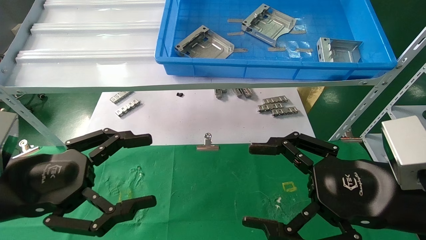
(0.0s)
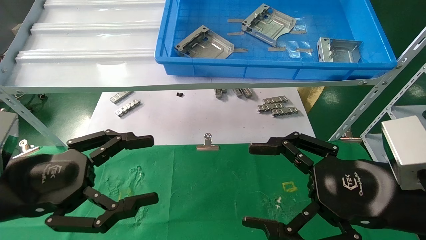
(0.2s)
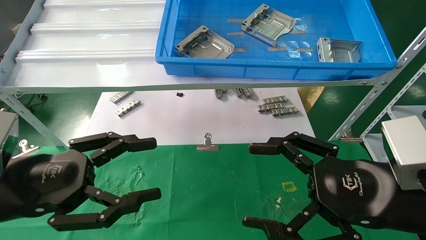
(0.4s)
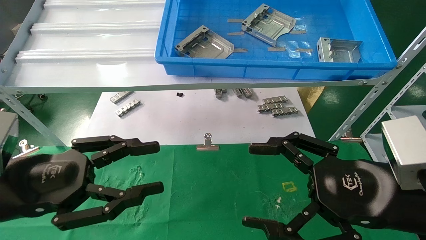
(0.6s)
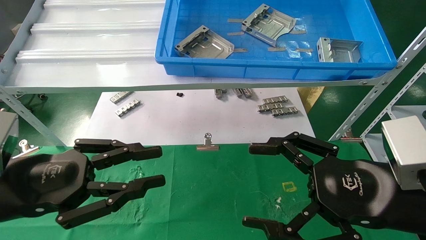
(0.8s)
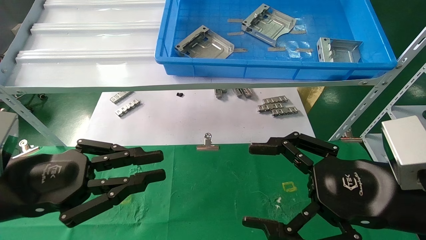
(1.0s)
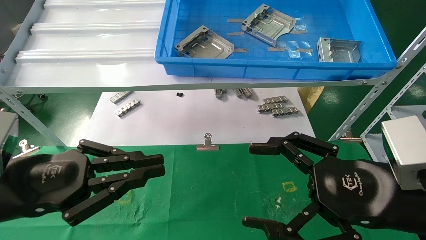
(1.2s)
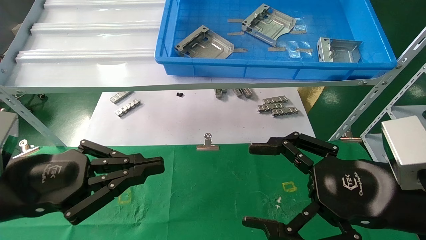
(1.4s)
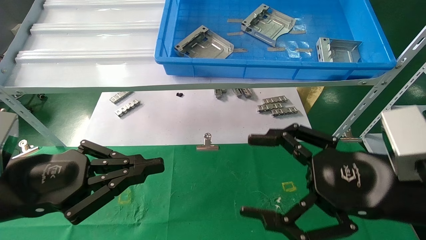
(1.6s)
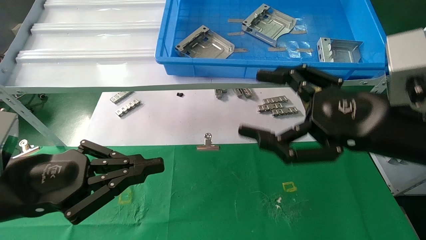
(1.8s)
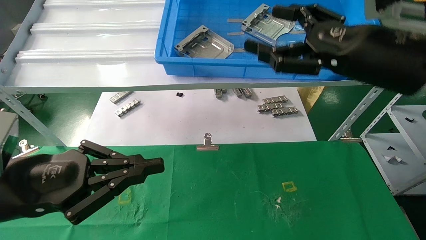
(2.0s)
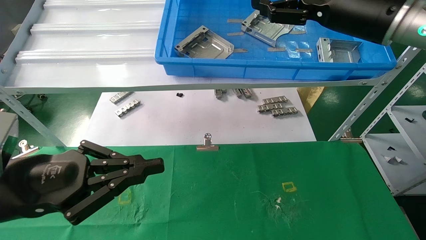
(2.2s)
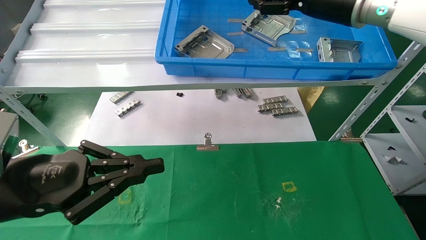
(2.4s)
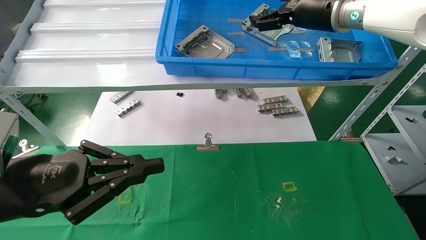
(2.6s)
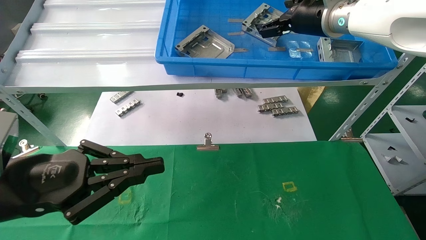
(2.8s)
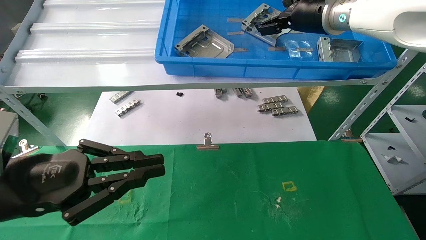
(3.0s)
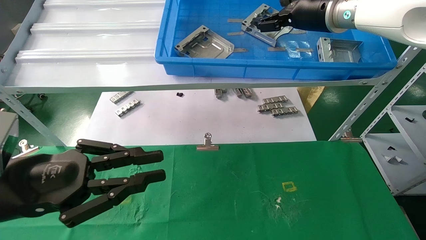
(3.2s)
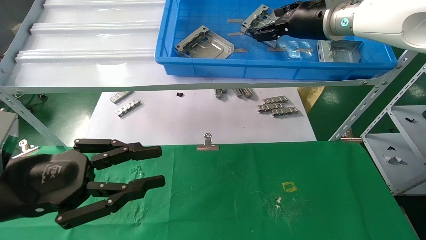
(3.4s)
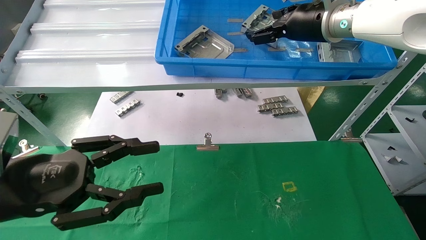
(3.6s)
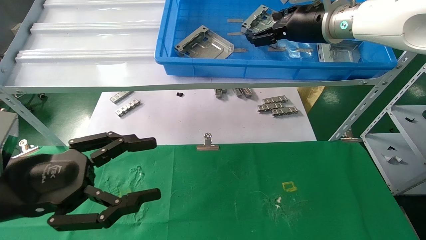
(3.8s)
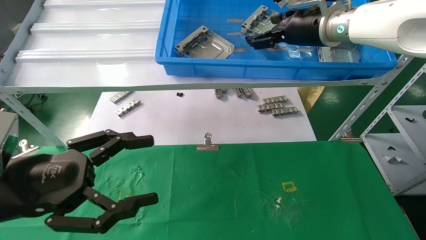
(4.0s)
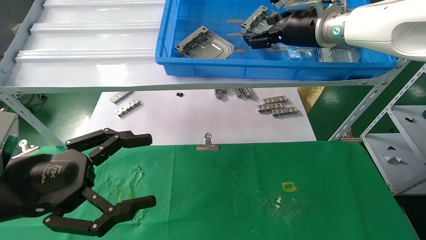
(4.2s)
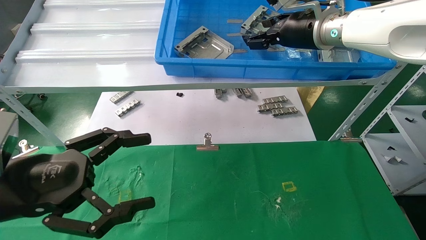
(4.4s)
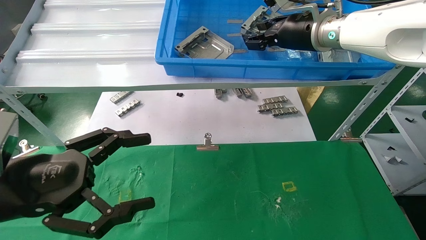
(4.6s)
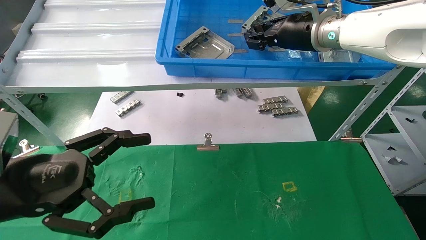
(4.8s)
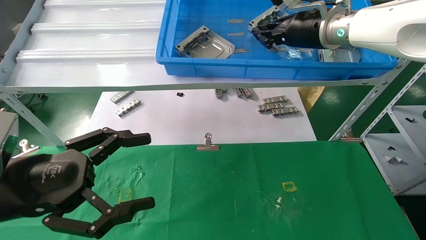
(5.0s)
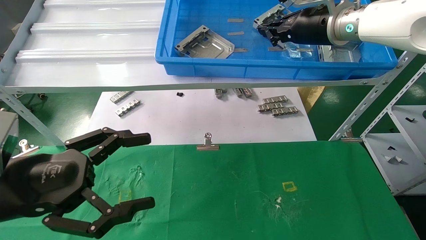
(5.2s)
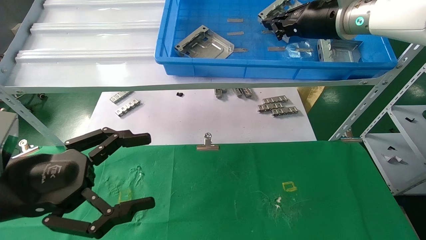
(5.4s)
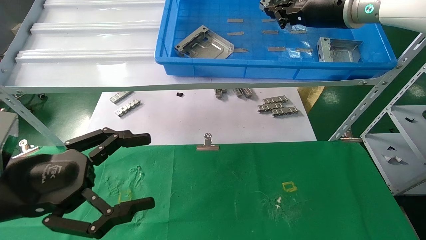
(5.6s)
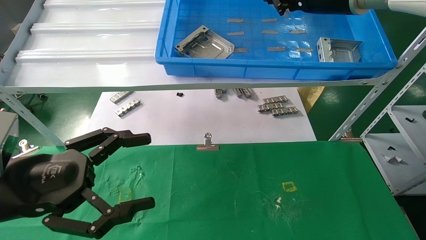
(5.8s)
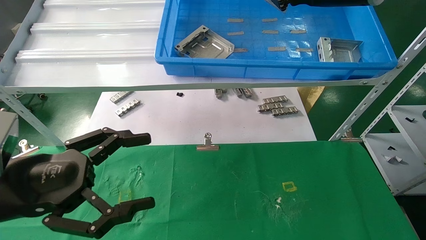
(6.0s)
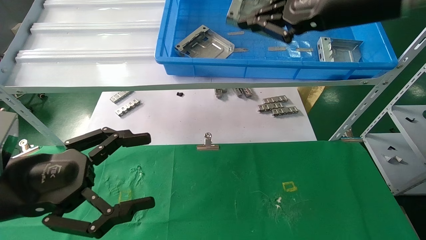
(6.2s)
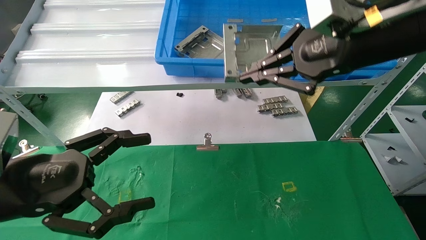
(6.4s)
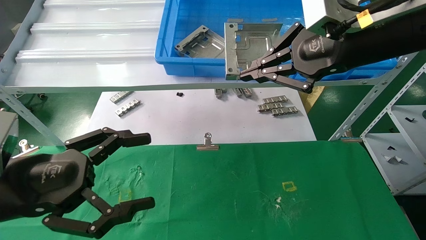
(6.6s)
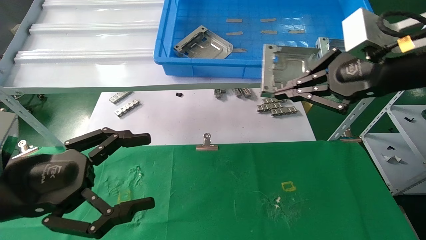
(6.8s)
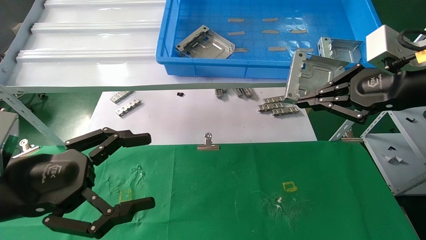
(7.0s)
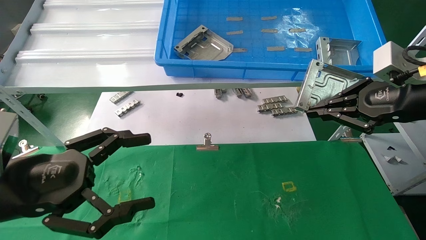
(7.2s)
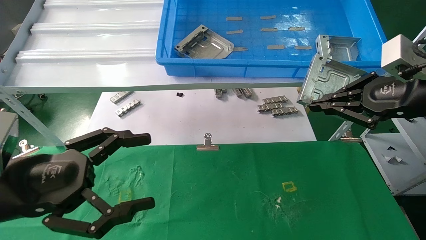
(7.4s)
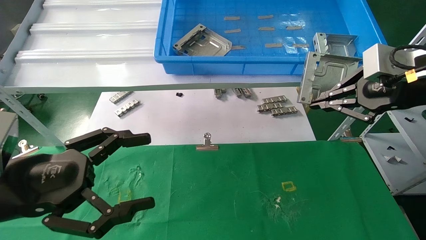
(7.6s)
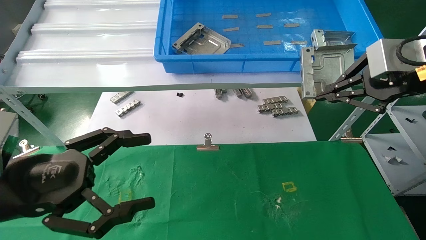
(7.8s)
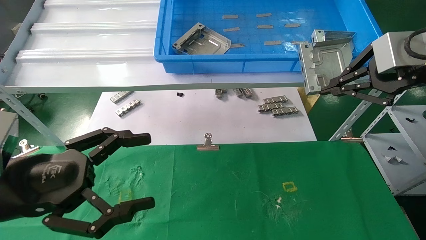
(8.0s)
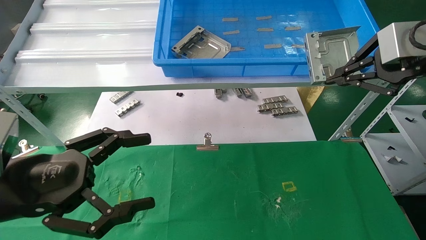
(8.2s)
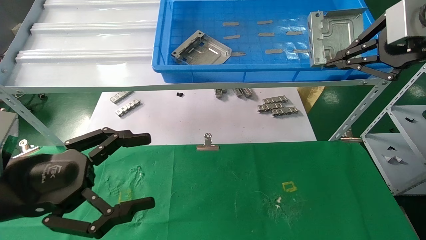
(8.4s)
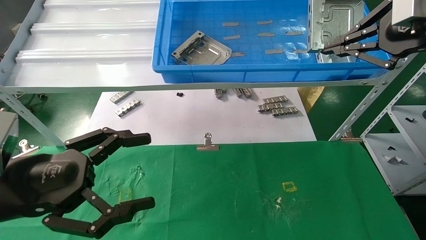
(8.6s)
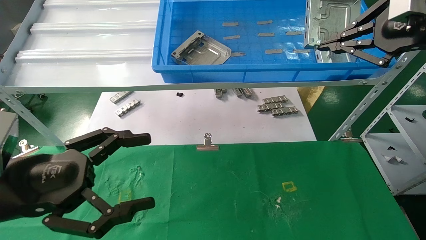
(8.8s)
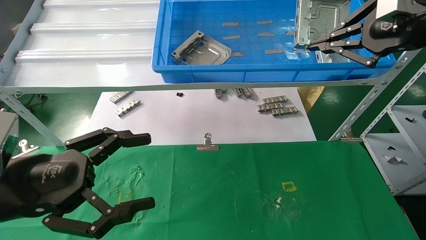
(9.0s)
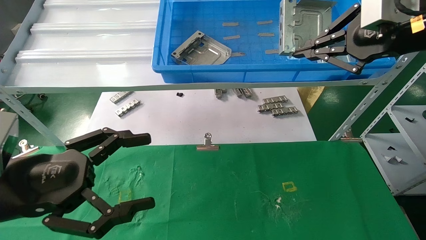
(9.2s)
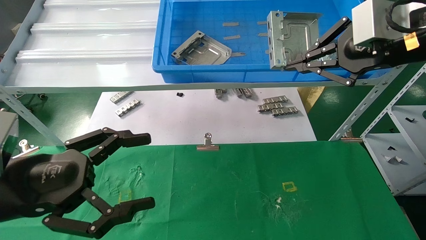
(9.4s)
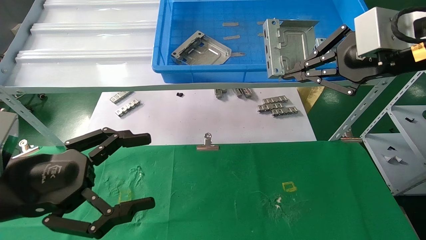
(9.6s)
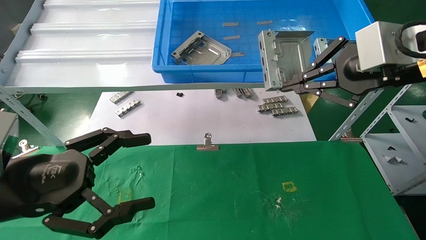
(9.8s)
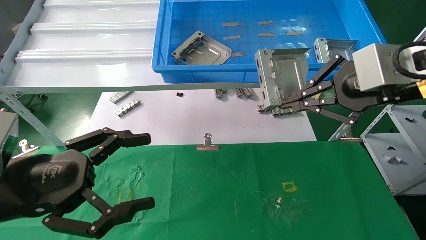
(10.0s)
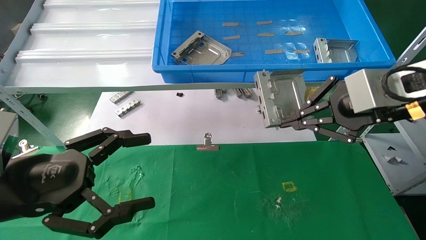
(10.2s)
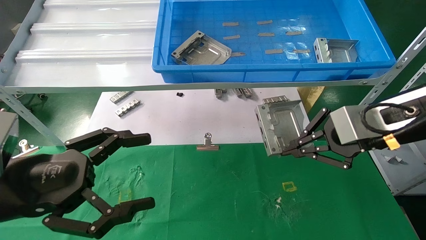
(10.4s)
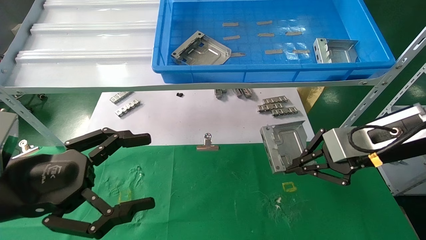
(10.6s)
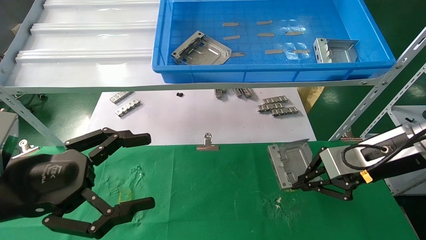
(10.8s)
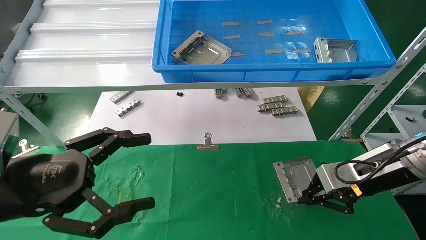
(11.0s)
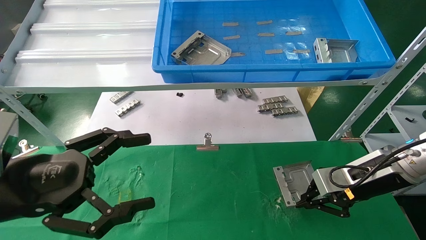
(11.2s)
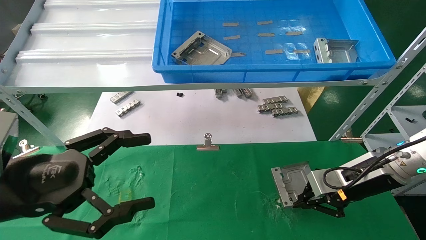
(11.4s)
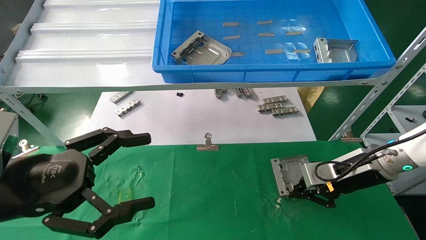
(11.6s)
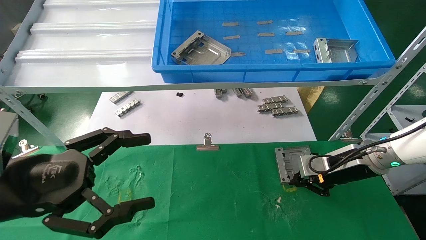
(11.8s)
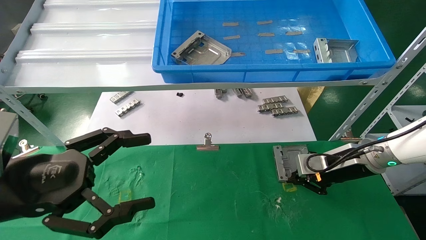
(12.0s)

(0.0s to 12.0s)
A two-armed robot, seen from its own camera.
Task of the whole recording: use the mechanical arm to pick up the parts and place them on the table.
Step, 2.0s - 5.0s: Pick up the hard drive bracket from the feeding area.
0.0s - 1.6s: The left gripper closes up.
1.6s - 3.0s: The right gripper shifts about 30 cm forward and upward.
3.0s - 4.4s: The left gripper opens.
4.4s - 6.0s: The right gripper heads backward and upward, covering some 10 cm, and closes its fingers.
6.0s - 7.6s: The right gripper moves to the right, backward and downward, about 15 cm.
7.6s - 9.0s: There are only small adjustments of the grippers.
9.0s - 10.4s: The right gripper travels downward by approximately 10 cm.
10.4s - 12.0s: The right gripper goes about 15 cm downward and forward.

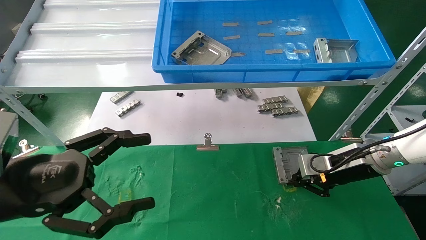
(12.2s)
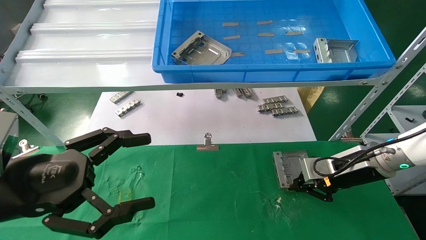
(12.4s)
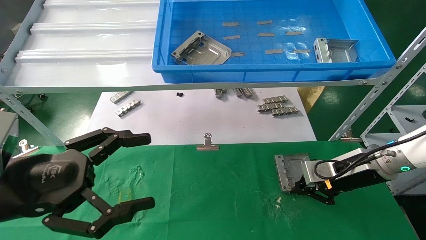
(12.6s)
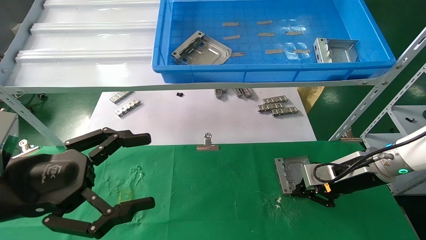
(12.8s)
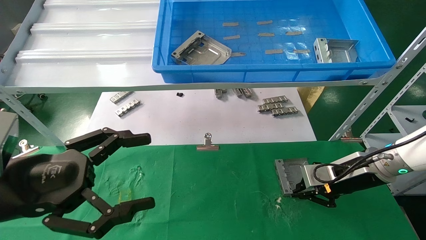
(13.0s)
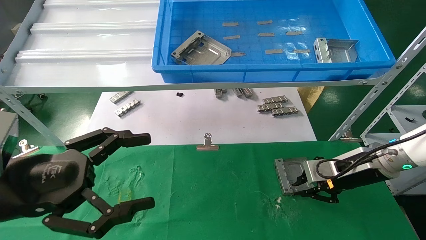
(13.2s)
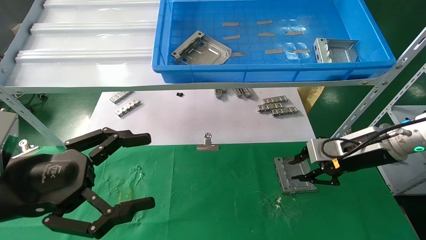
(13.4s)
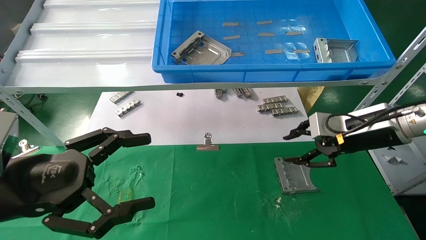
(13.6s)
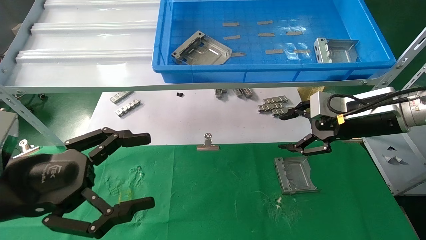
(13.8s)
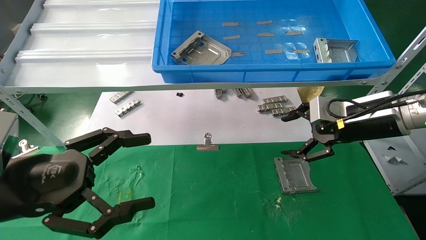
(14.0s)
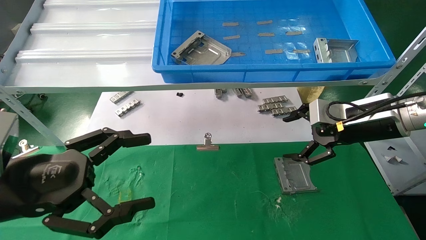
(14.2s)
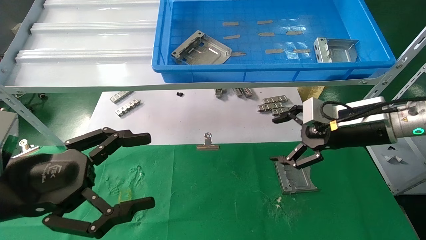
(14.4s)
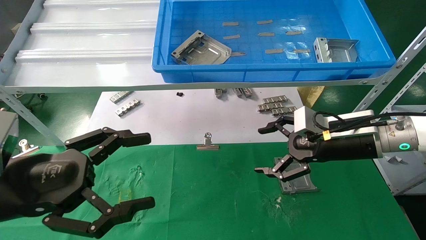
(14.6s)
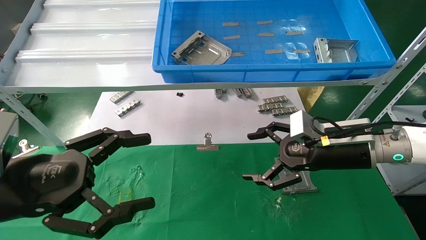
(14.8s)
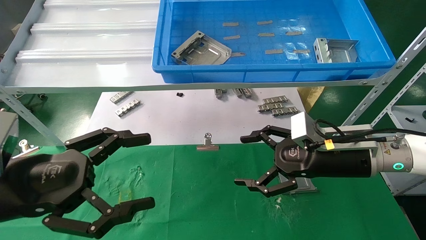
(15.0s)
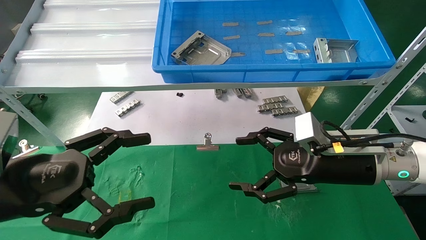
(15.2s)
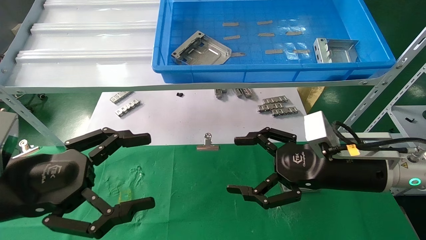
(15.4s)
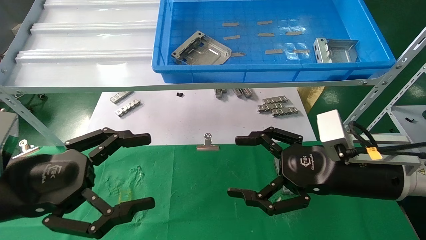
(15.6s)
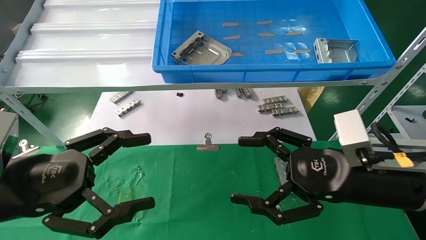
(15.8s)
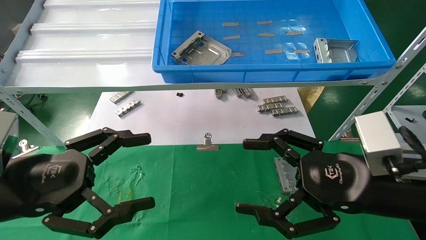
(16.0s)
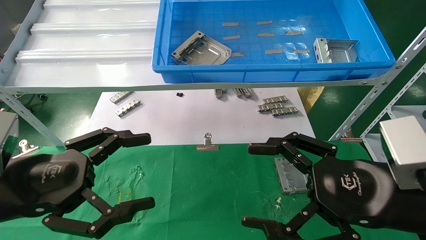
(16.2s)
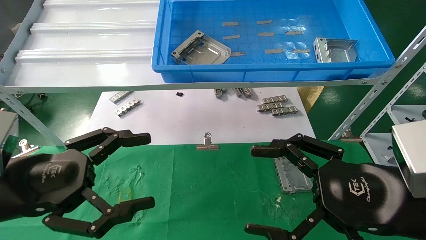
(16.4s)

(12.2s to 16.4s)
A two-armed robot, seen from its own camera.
Task of the whole recording: use the mechanical arm to pick up the parts and place them on the table.
12.2s - 13.6s: The right gripper goes about 10 cm upward.
13.6s - 15.0s: The right gripper shifts approximately 5 cm to the left, and opens its fingers.
15.0s - 16.4s: The right gripper moves backward, roughly 15 cm.
